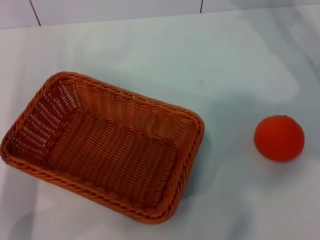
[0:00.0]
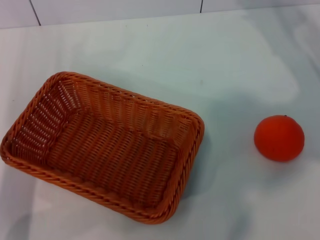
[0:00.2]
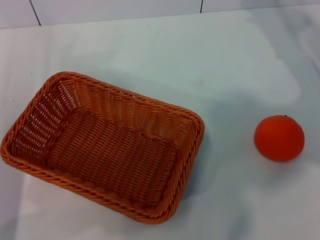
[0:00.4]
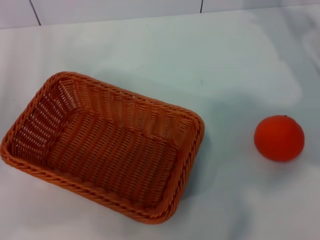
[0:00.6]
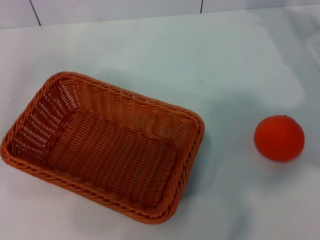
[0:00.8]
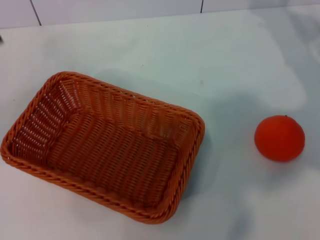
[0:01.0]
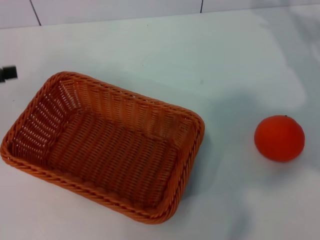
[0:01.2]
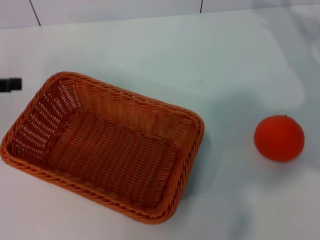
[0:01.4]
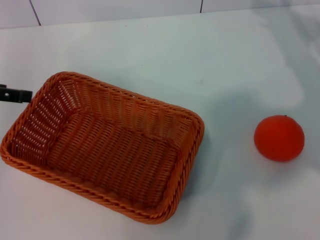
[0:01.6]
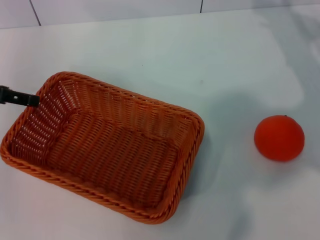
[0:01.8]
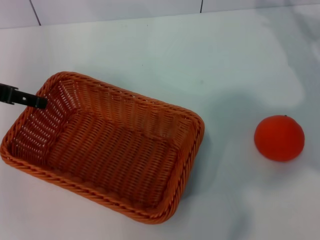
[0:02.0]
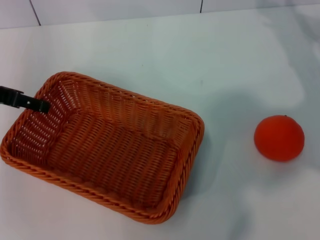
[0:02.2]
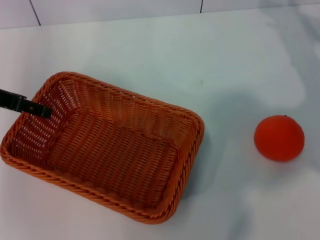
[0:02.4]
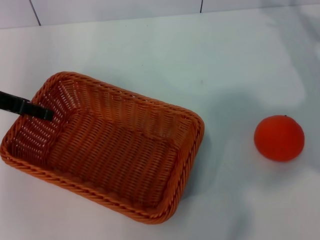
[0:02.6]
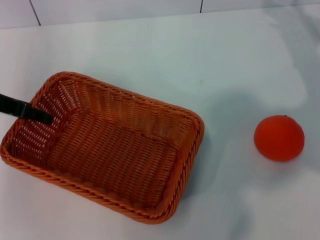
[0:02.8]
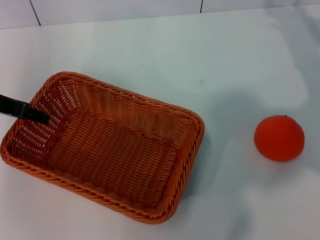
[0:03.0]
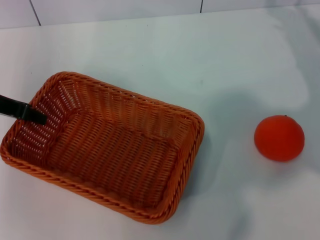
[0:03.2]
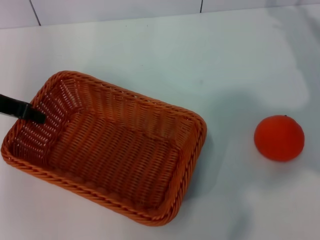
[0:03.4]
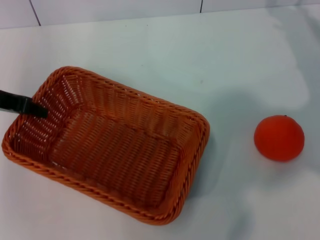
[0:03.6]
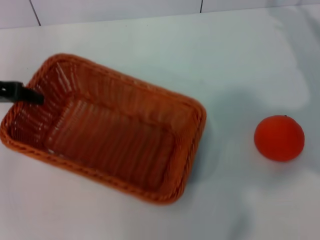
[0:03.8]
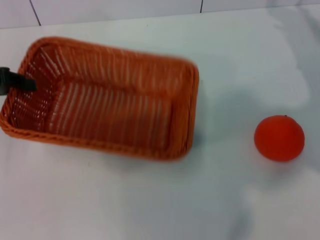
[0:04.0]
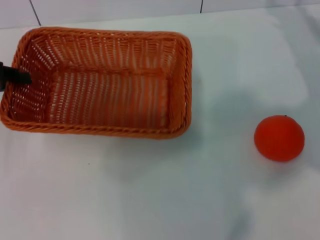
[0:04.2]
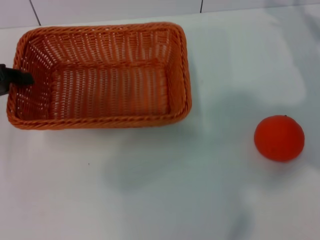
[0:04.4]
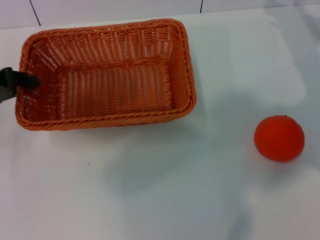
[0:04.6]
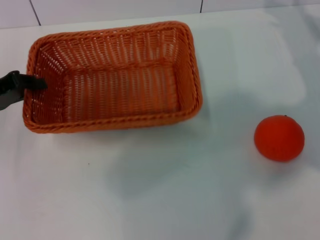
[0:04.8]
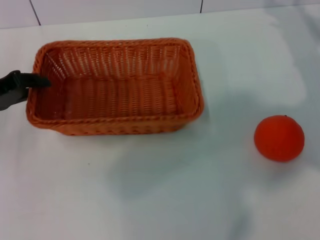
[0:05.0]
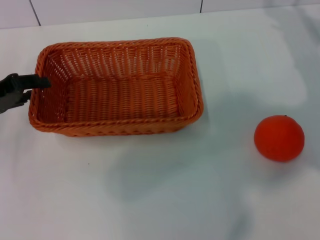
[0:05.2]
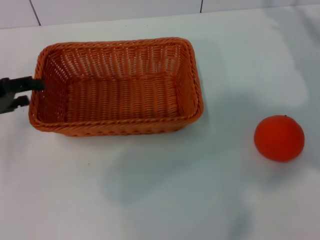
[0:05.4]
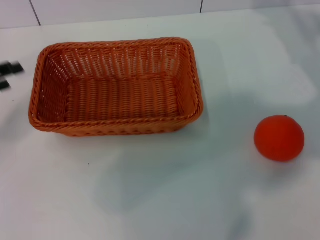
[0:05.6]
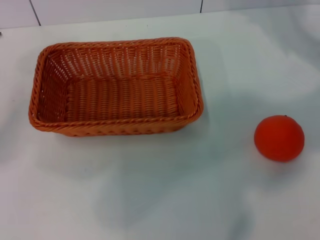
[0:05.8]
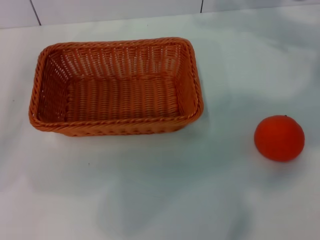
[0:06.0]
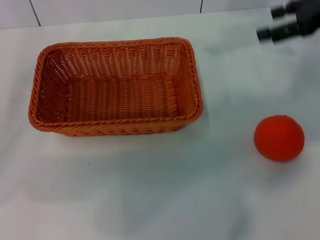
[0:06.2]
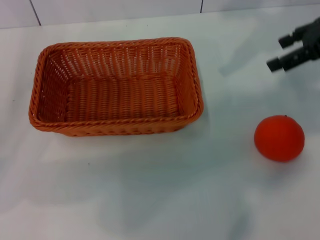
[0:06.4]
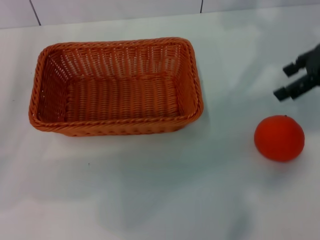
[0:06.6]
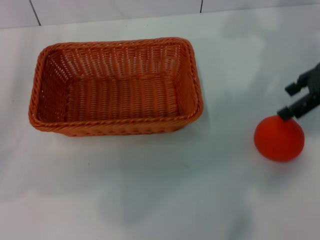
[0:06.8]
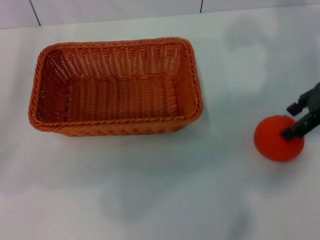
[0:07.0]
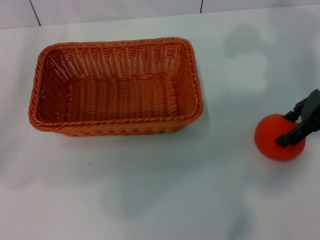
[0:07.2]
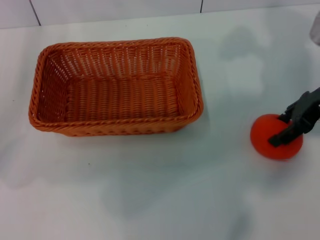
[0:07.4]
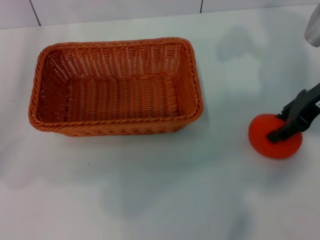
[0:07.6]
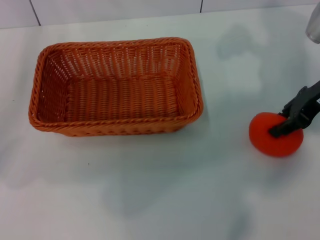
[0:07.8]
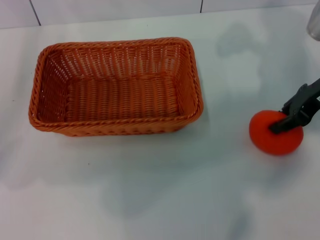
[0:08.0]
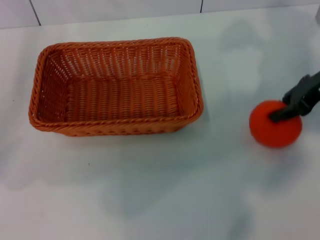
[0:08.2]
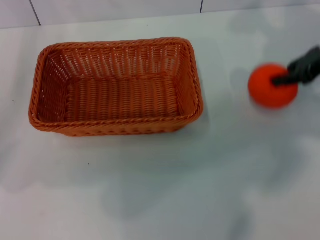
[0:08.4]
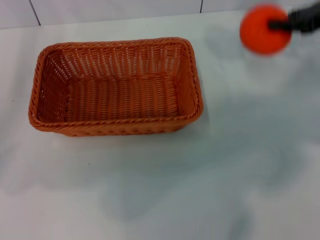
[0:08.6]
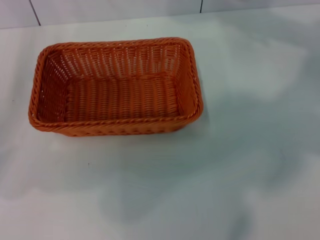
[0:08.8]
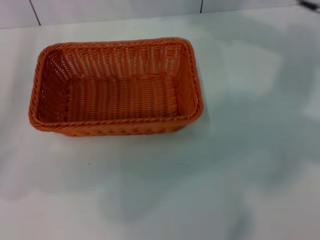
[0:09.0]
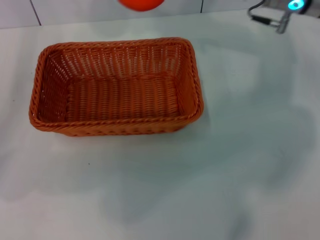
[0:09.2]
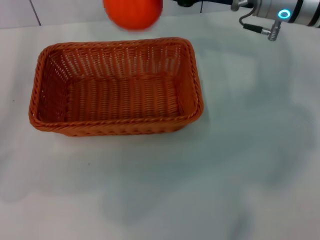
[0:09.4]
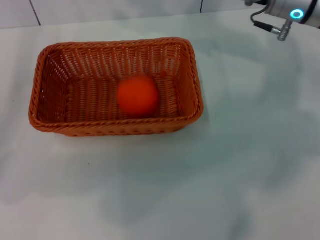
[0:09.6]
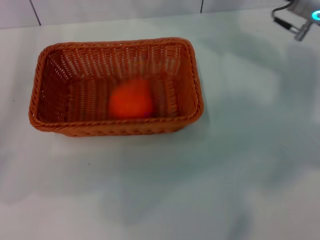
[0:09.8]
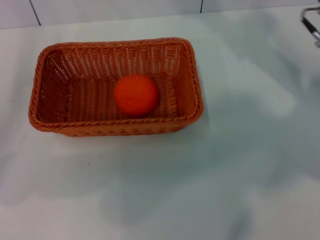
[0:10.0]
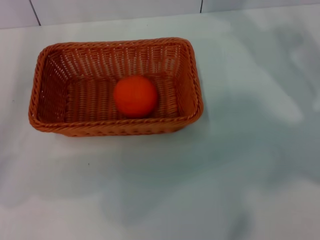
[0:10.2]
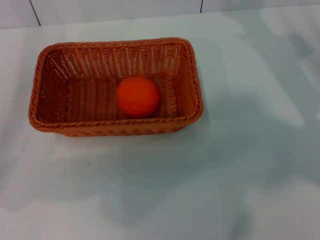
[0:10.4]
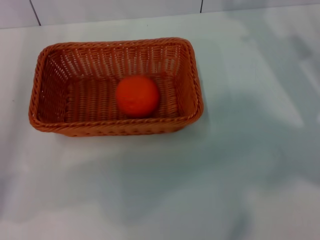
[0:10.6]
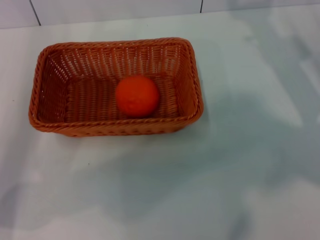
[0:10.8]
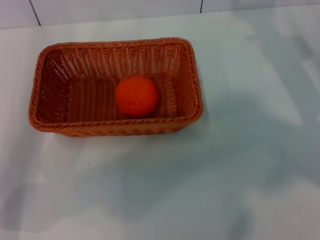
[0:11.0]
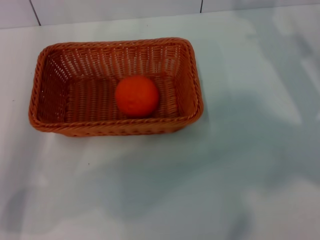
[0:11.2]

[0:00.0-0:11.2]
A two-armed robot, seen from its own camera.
Task of the whole recording: the left gripper pick up the yellow basket and place it horizontally in the middle of the table, the right gripper pick up the orange and place it into the yellow basket.
Step, 0:00.0 to 0:03.6: Pick up the light basket with the left gripper.
Step, 0:04.0 to 0:05.4: Place the light basket in the center of view with the left gripper.
Step, 0:05.6 to 0:08.2: Pick up the orange with the right gripper.
Step, 0:08.6 to 0:09.6: Place the orange into the light basket with the right gripper.
0:00.0 to 0:01.6: The left gripper travels upward, forward and to the left by roughly 15 cm.
0:01.6 to 0:03.2: The left gripper shifts by approximately 5 cm.
0:03.2 to 0:04.8: The left gripper changes place by about 5 cm, and closes.
0:04.8 to 0:06.4: The right gripper shifts about 15 cm upward. The left gripper opens its fingers.
0:06.4 to 0:08.0: The right gripper moves downward, about 5 cm, and closes.
0:08.0 to 0:09.6: The right gripper shifts some 10 cm to the left.
0:09.6 to 0:11.2: The right gripper is displaced to the right and downward by approximately 15 cm, and opens. The left gripper goes roughly 5 cm to the right.

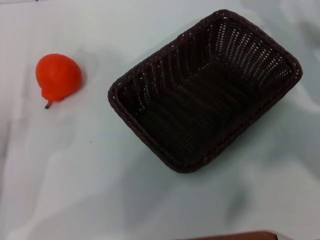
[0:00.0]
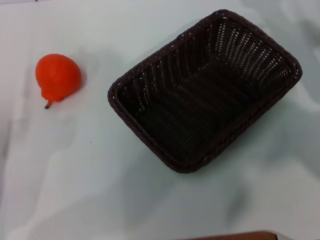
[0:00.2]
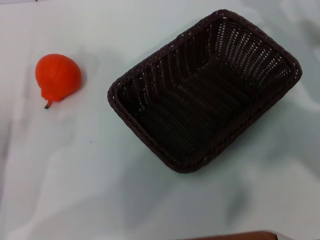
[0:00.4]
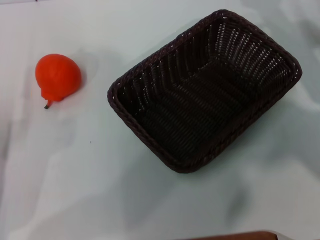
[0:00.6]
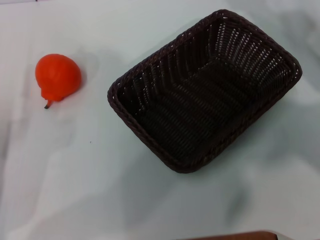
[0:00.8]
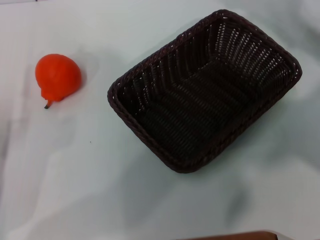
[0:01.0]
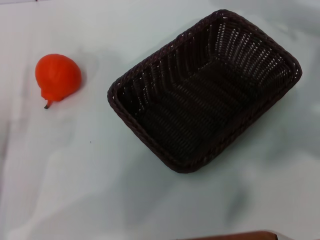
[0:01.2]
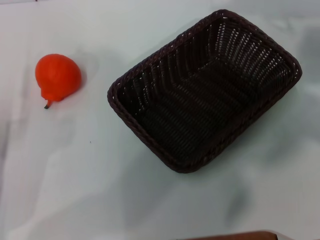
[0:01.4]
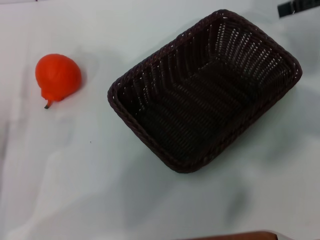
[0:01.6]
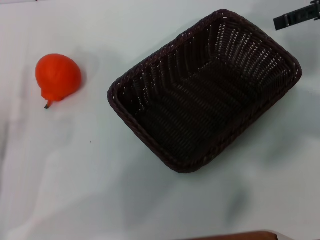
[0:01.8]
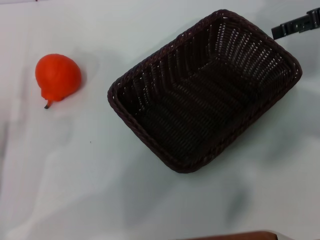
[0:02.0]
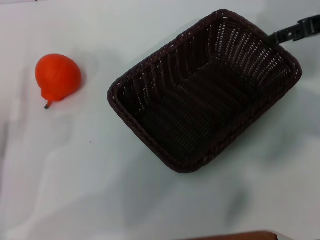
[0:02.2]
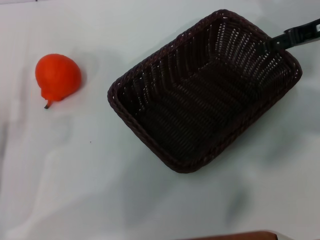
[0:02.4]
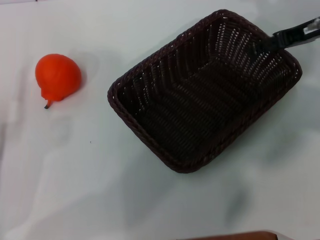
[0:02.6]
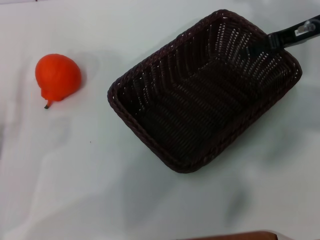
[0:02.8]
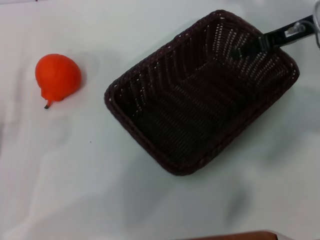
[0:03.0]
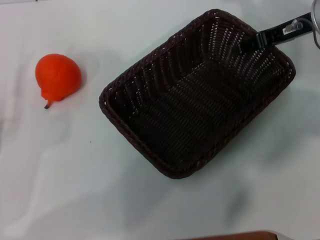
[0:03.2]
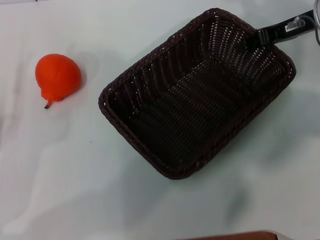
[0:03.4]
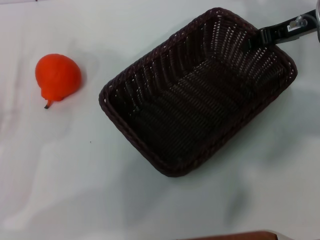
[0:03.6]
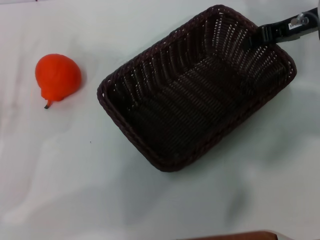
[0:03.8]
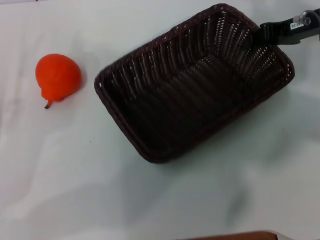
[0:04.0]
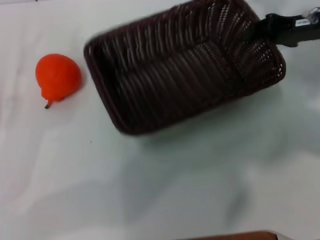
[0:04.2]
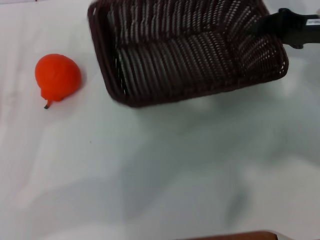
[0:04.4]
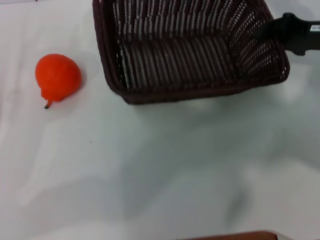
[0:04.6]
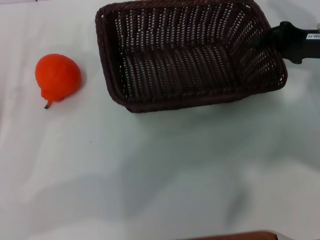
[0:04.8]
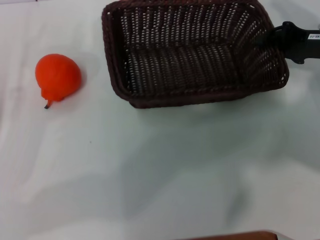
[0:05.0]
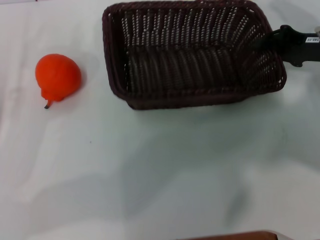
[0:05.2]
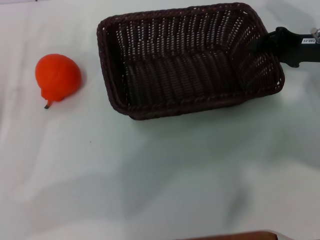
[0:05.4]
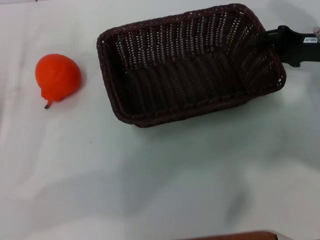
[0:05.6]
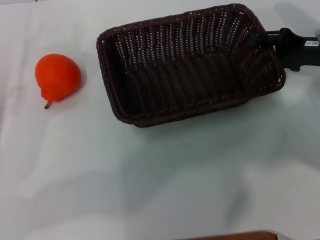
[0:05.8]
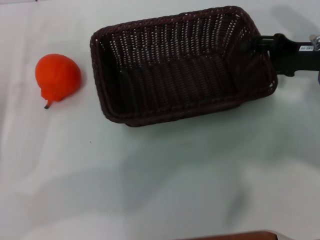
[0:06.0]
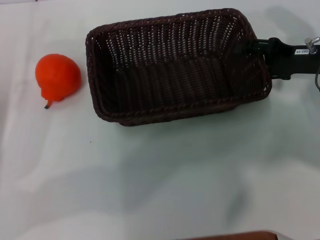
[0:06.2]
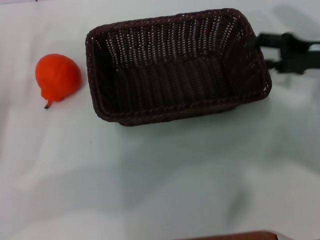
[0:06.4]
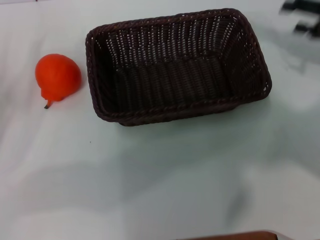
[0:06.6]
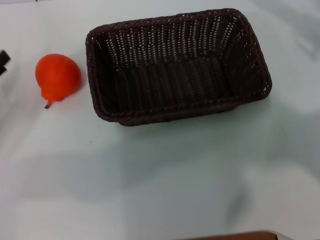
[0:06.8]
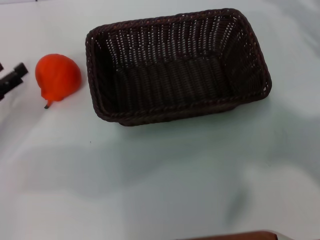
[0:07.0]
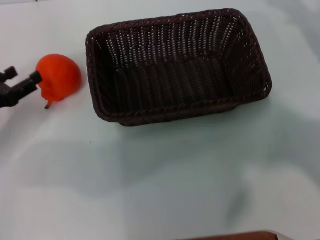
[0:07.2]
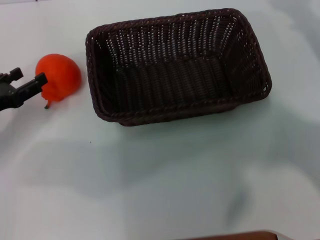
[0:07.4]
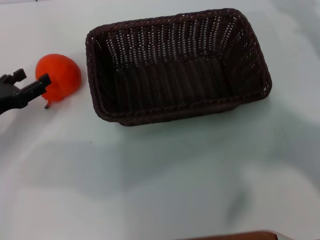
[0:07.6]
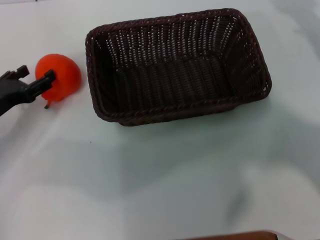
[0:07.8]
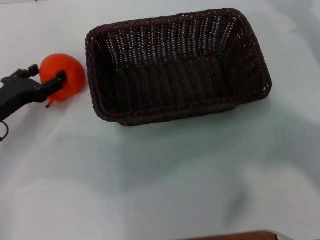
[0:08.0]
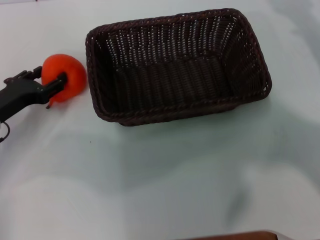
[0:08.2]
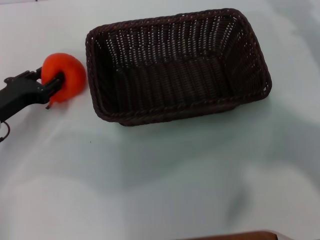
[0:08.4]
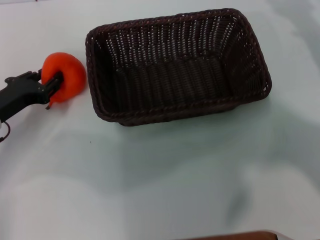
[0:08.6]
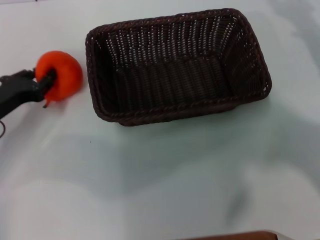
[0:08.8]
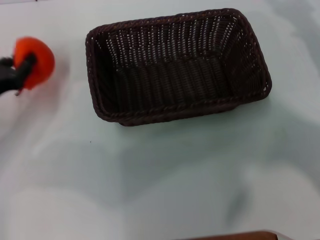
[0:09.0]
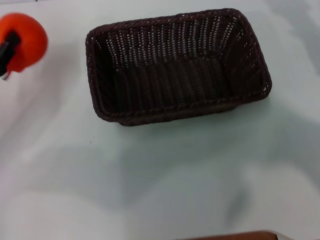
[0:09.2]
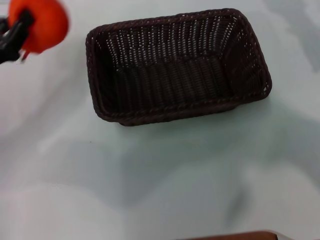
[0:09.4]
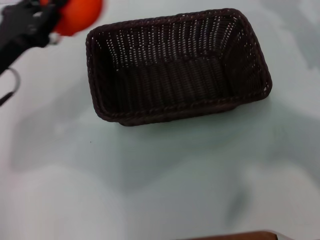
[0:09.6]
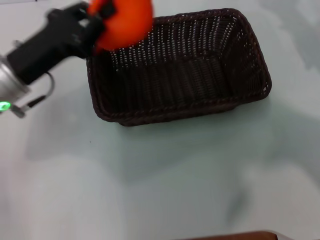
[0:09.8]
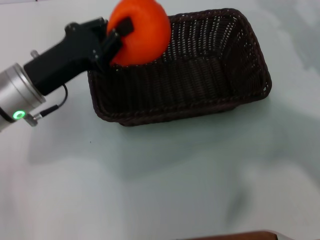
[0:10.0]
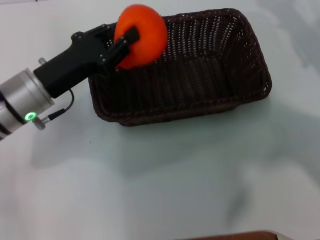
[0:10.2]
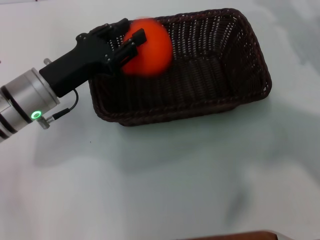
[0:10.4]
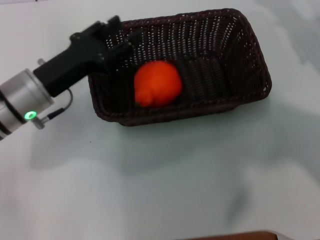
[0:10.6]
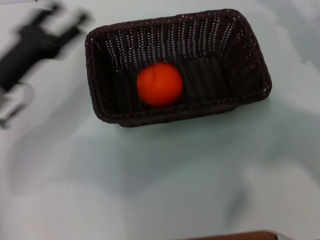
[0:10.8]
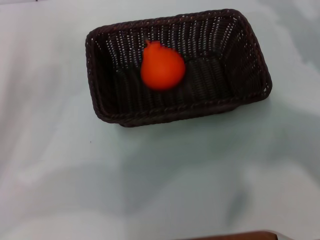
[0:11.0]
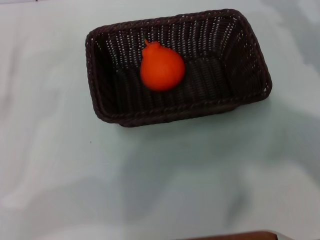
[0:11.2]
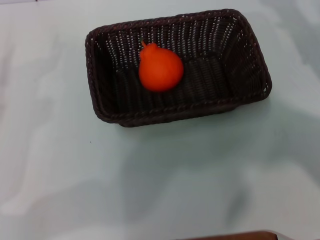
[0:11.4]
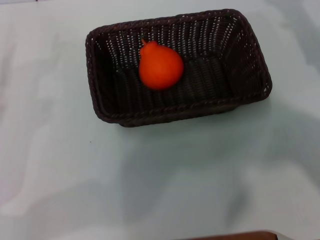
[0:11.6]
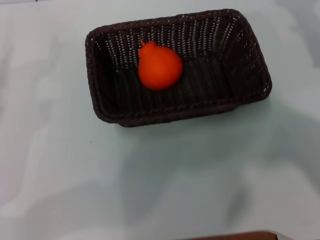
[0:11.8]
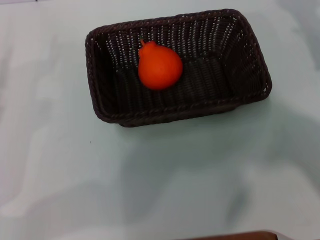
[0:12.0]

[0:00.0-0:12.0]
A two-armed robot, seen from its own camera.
Task of the whole recording: the right gripper pick up the black basket and place it horizontally in the middle of the table, the left gripper pick up the orange and place it into the black basket.
Step, 0:00.0 to 0:04.0: Pick up the dark basket with the right gripper.
Step, 0:04.2 to 0:06.4: Place the dark basket in the center of view with the right gripper.
Step, 0:06.6 to 0:09.0: Pick up the orange with the left gripper.
Step, 0:09.2 to 0:10.6: Place the orange into the dark basket with the left gripper.
0:00.0 to 0:01.6: The right gripper goes roughly 15 cm upward.
0:01.6 to 0:03.0: The right gripper shifts about 10 cm downward.
0:03.0 to 0:04.4: The right gripper moves about 5 cm, and closes.
0:04.4 to 0:06.0: The right gripper opens.
0:06.0 to 0:07.6: The right gripper is displaced to the right by some 10 cm, and opens its fingers.
0:07.6 to 0:09.0: The left gripper closes its fingers.
0:09.0 to 0:10.4: The left gripper goes some 10 cm to the right.
0:10.4 to 0:12.0: The left gripper moves to the left and backward, about 15 cm, and opens.
